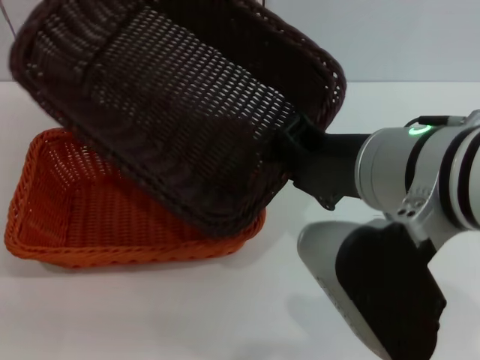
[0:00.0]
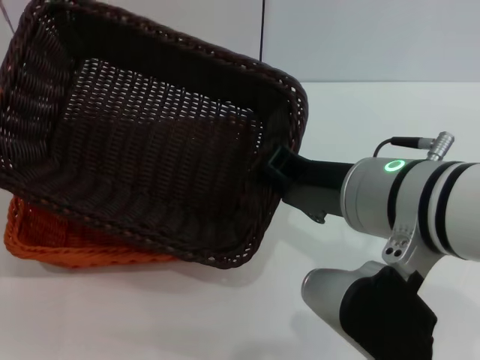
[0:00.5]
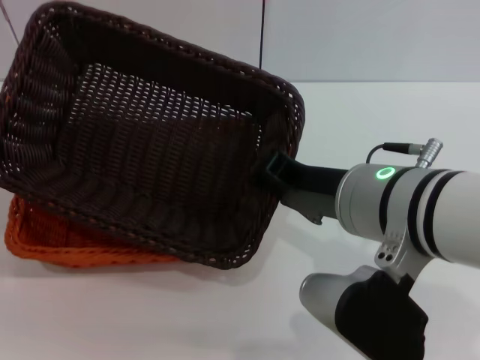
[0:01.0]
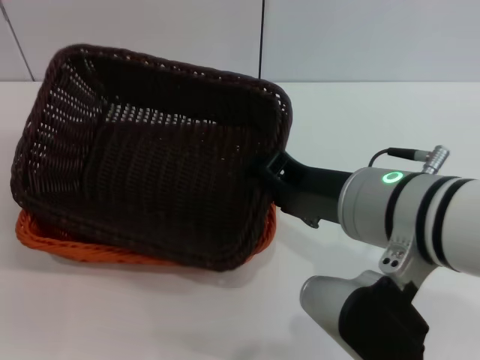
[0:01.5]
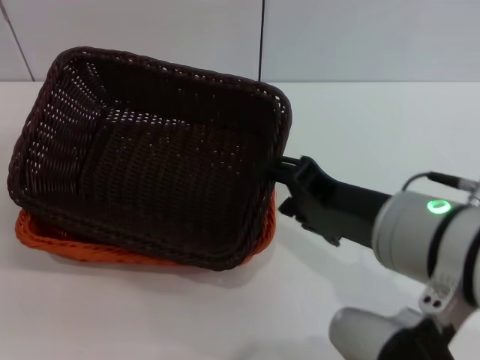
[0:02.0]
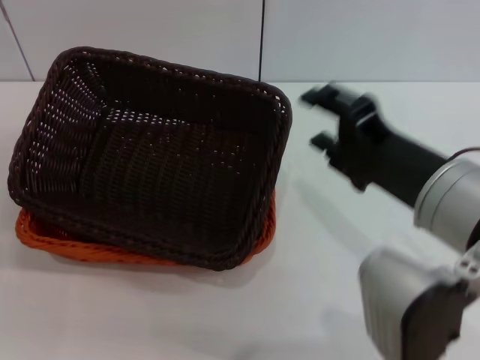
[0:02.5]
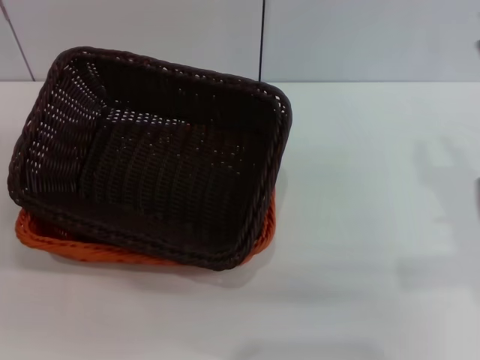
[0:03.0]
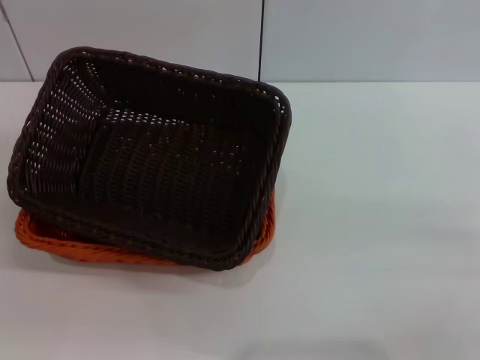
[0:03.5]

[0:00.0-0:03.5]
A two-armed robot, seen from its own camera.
0:00.0 to 0:02.0: The right gripper changes place by approximately 5 cm, and opens.
0:02.0 to 0:03.5: The right gripper shifts about 25 cm to the right and downward.

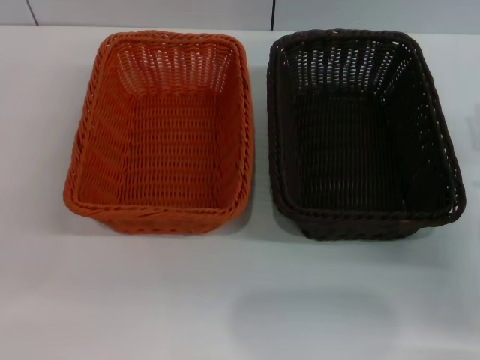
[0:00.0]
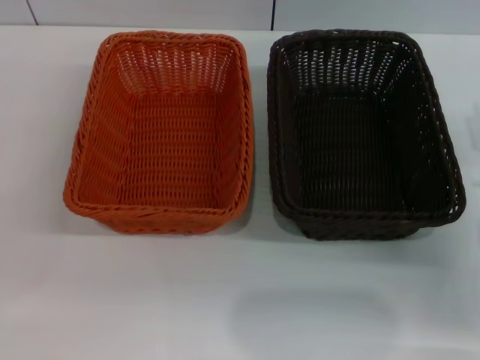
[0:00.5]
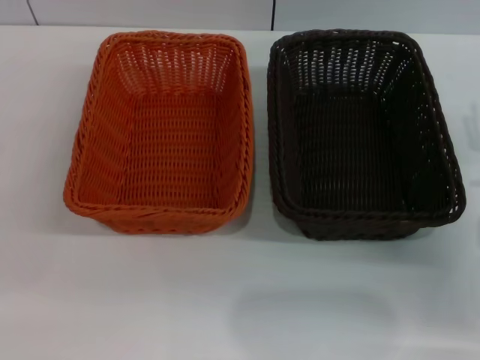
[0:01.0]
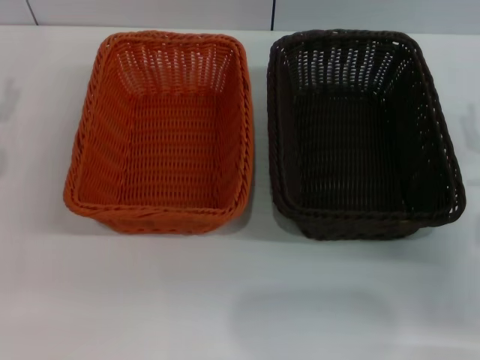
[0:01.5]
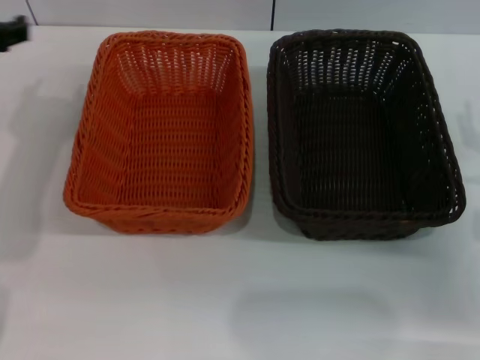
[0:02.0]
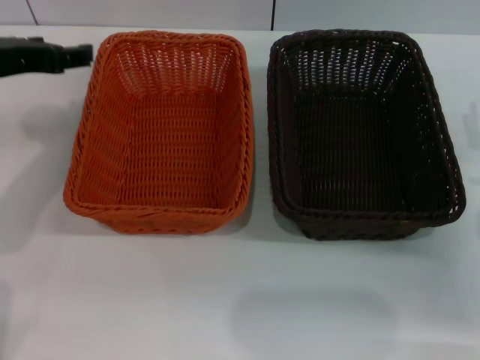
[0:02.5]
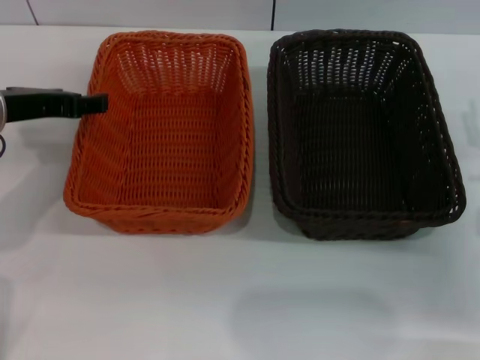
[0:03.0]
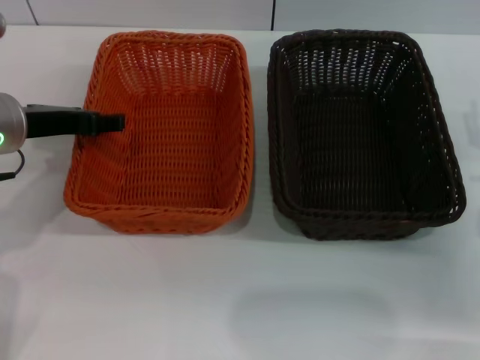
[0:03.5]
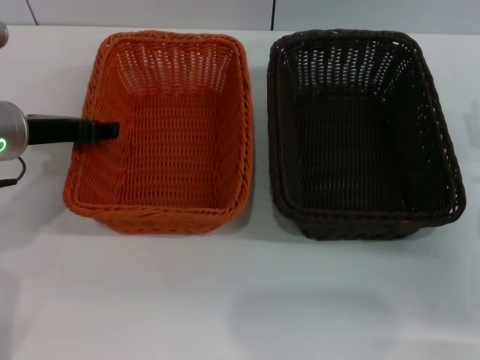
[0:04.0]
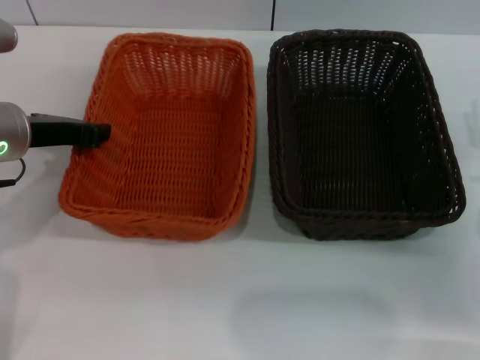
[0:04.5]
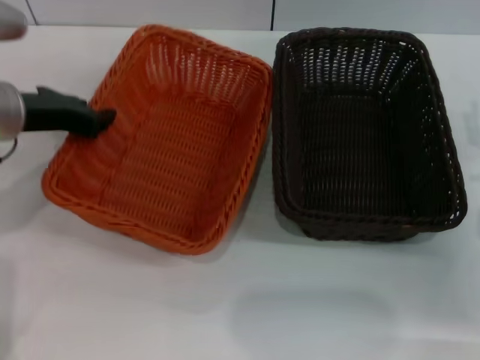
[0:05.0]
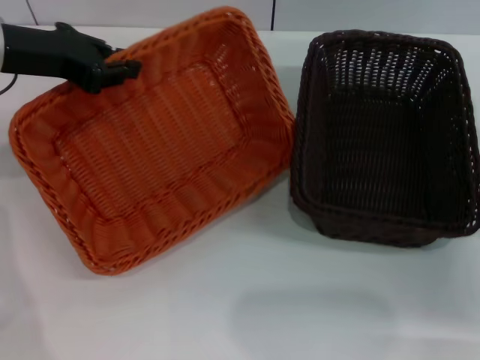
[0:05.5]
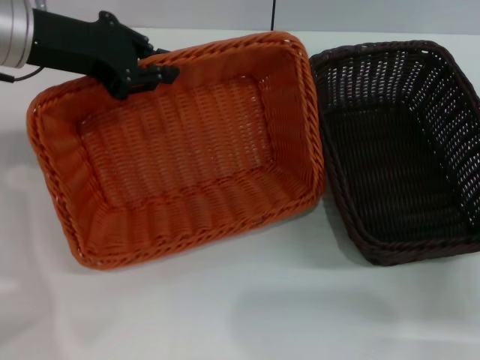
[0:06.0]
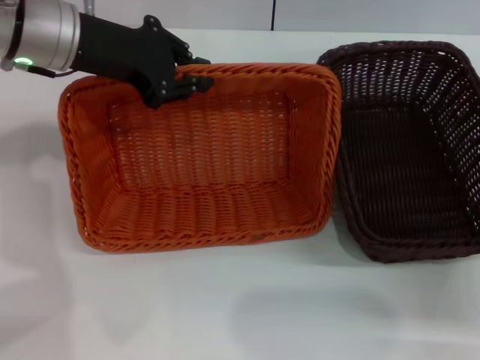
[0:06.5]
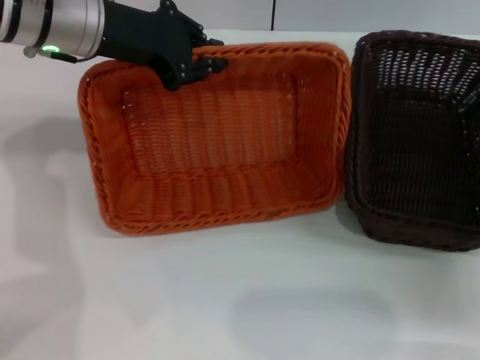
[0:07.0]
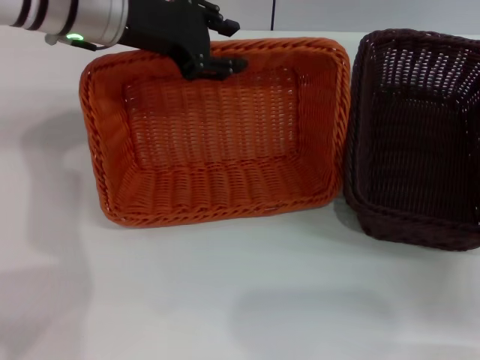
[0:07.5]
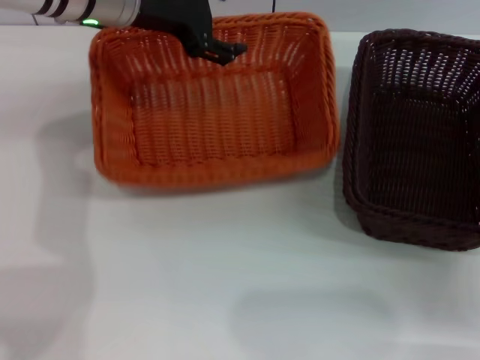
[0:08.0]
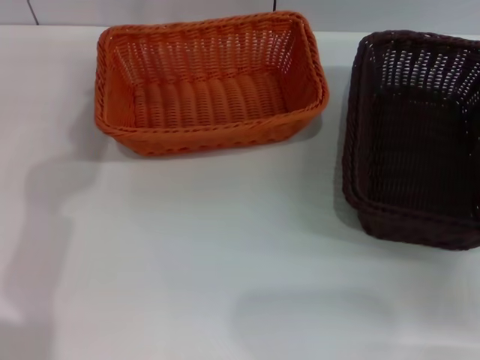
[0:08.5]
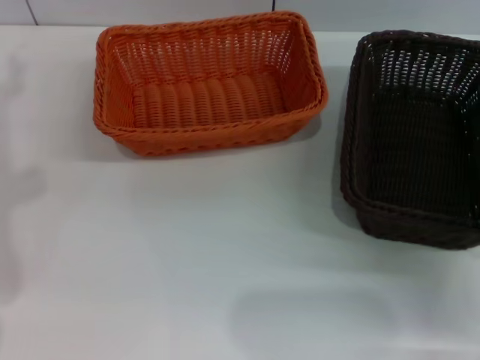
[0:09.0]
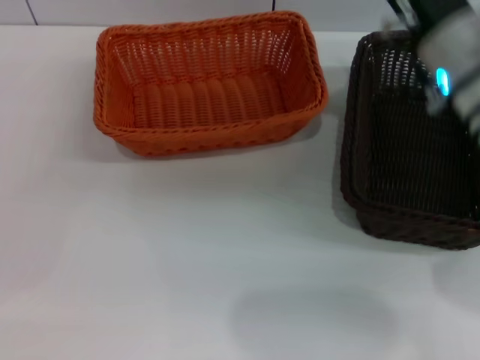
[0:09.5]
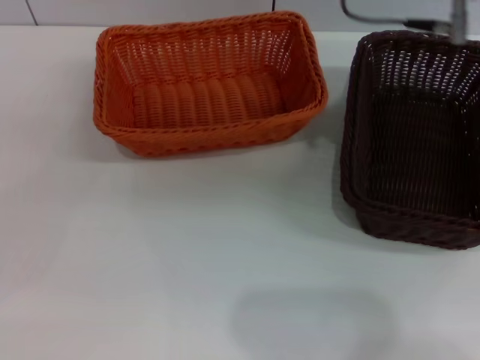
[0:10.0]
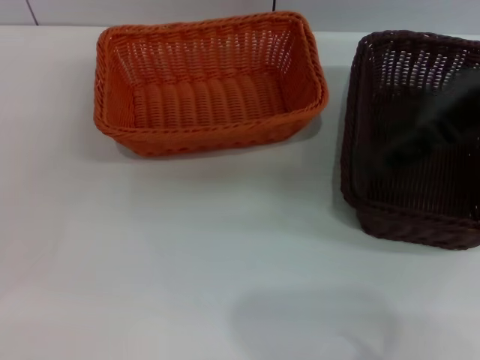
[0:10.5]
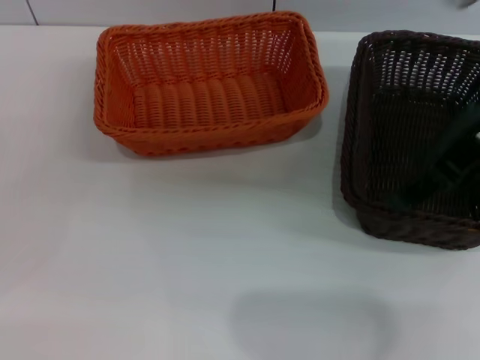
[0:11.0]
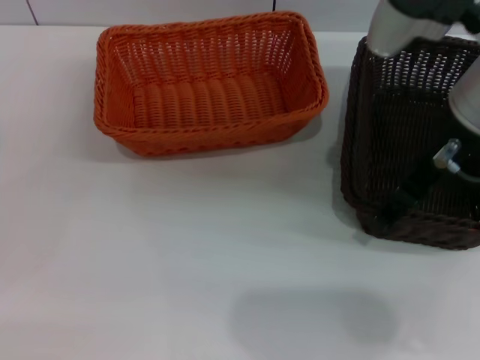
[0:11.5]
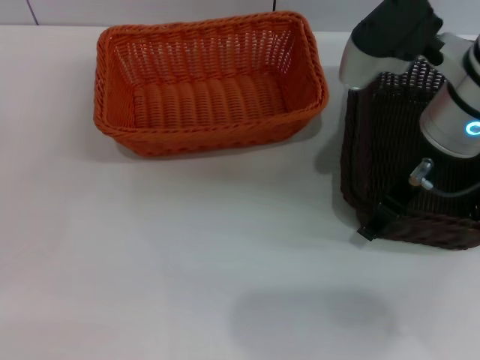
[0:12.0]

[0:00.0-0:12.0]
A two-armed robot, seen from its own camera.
Step, 0:00.0 to 0:05.0: Pick up the light basket with the left gripper.
Step, 0:06.0 to 0:08.0: Place the light basket in the center of view with the left gripper.
0:00.0 to 0:02.0: The left gripper heads upward, forward and to the right, covering approximately 25 cm.
0:02.0 to 0:04.0: The left gripper travels downward by approximately 5 cm.
0:04.0 to 0:06.0: The left gripper heads upward, covering roughly 10 cm, and closes its fingers.
0:06.0 to 0:08.0: The left gripper is displaced to the right and forward by some 10 cm, and opens.
0:08.0 to 0:10.0: The left gripper travels backward, to the left and downward by approximately 35 cm. Meanwhile the right gripper is displaced upward and to the left by about 25 cm.
0:10.0 to 0:12.0: The right gripper is displaced downward by approximately 10 cm.

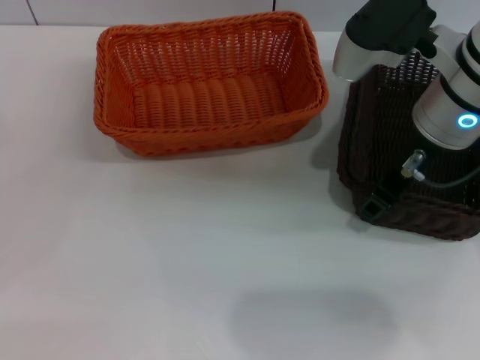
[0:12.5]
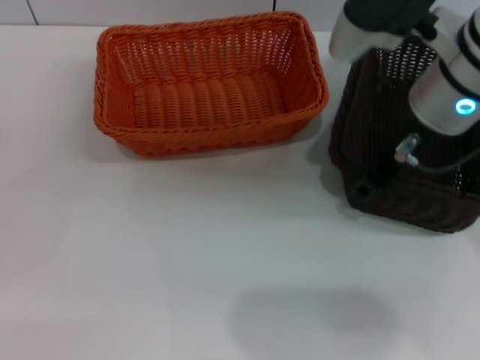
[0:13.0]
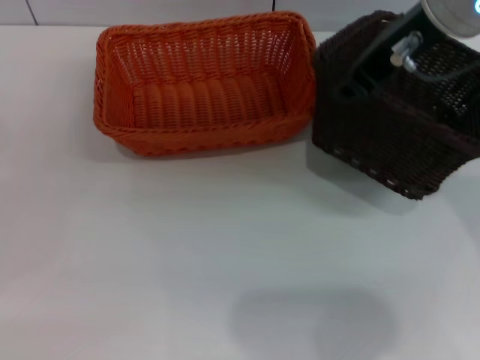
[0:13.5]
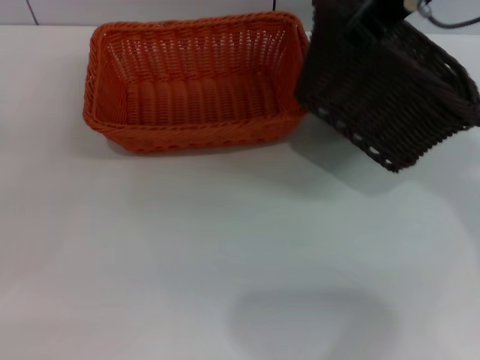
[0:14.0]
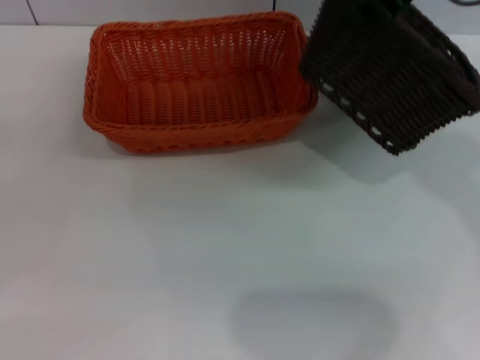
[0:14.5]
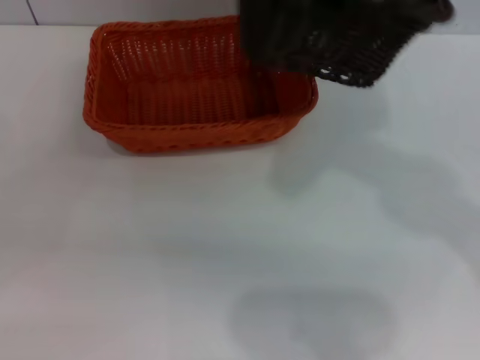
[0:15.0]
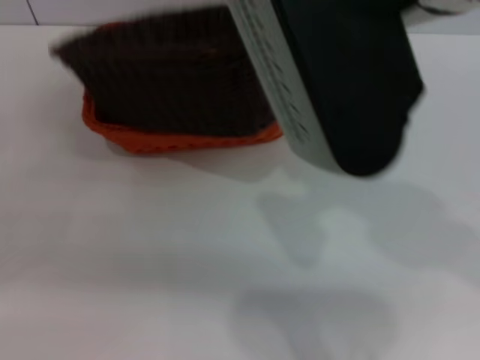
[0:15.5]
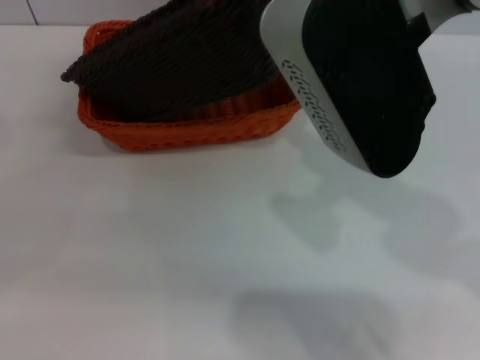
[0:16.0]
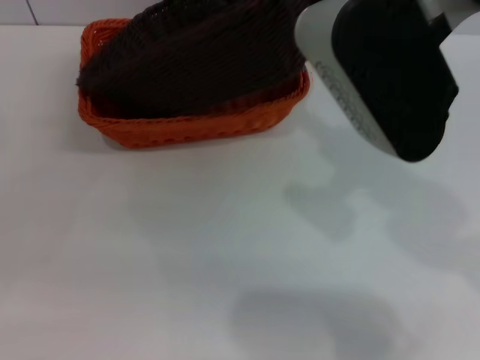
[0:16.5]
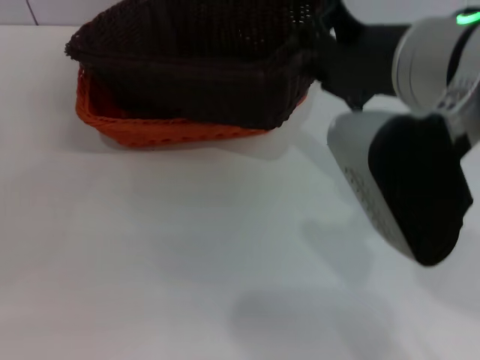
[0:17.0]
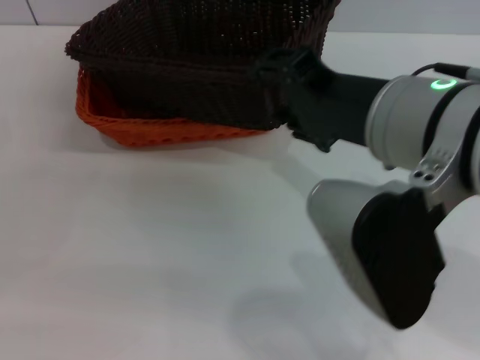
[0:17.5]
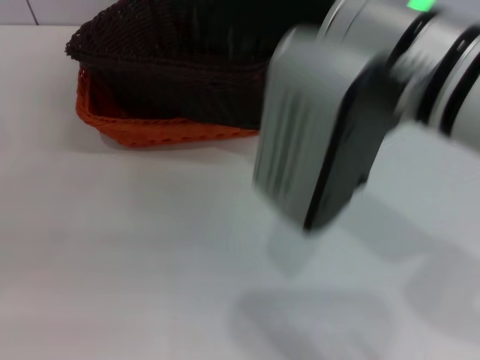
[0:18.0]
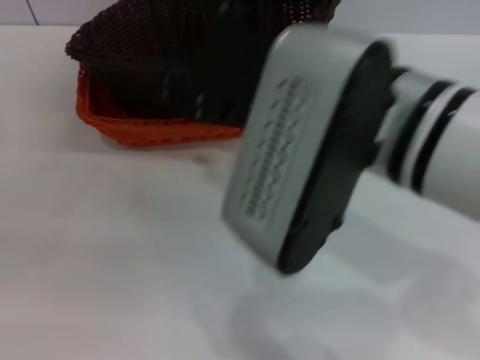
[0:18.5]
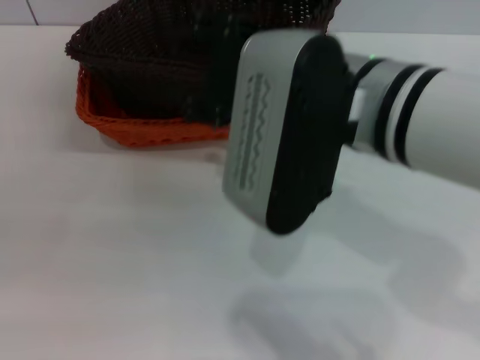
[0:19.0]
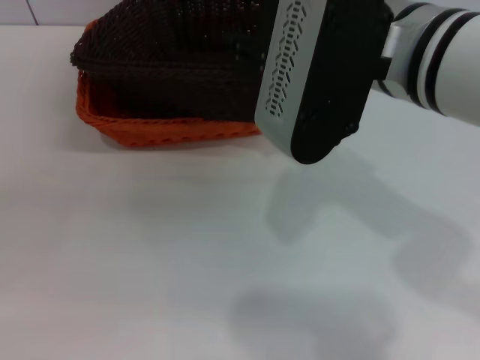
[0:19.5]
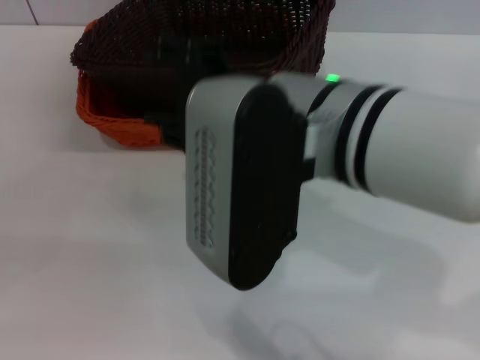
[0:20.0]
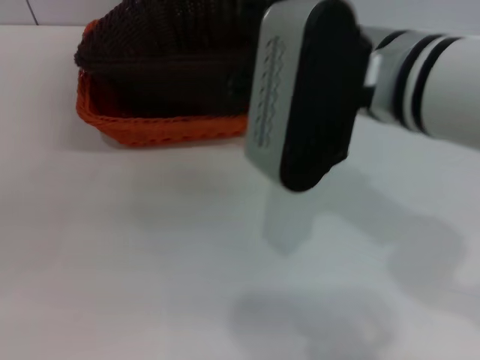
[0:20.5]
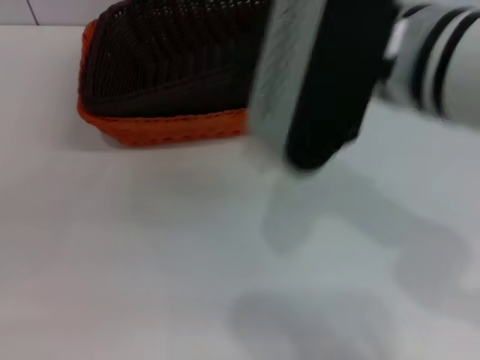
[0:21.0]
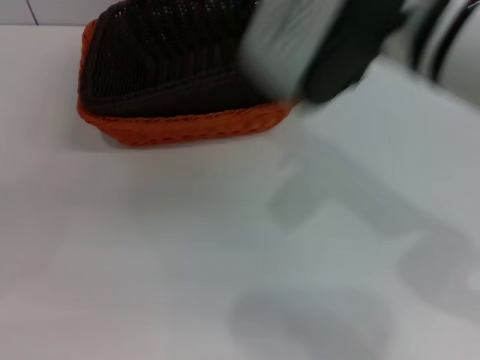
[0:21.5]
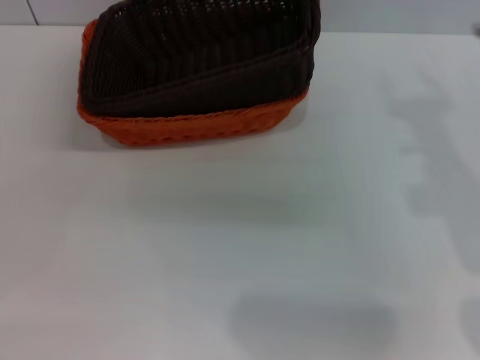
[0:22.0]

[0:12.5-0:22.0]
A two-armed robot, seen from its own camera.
Step, 0:14.0 to 0:20.5: Place the dark basket on the light basket with the right gripper.
0:12.5 to 0:14.5: The right gripper shifts some 15 cm upward.
0:14.5 to 0:16.5: The right gripper moves about 5 cm.
0:16.5 to 0:18.0: The right gripper opens its fingers.
0:18.0 to 0:20.0: The right gripper moves about 5 cm.
0:20.0 to 0:22.0: The right gripper shifts approximately 15 cm to the right.
